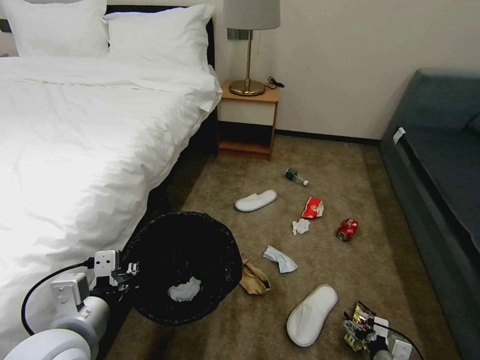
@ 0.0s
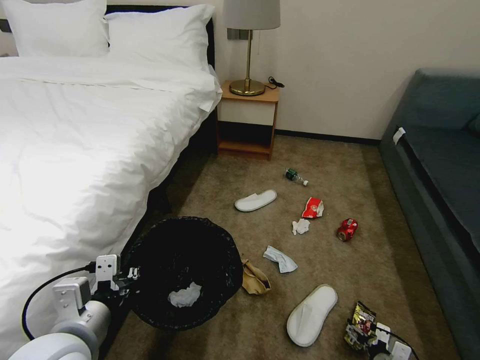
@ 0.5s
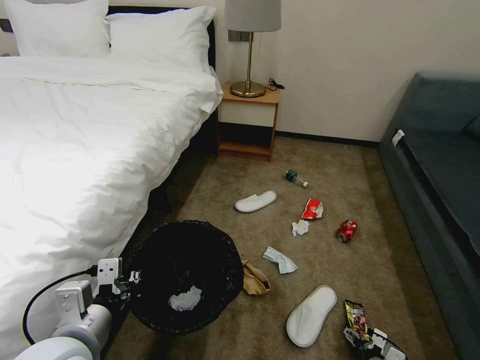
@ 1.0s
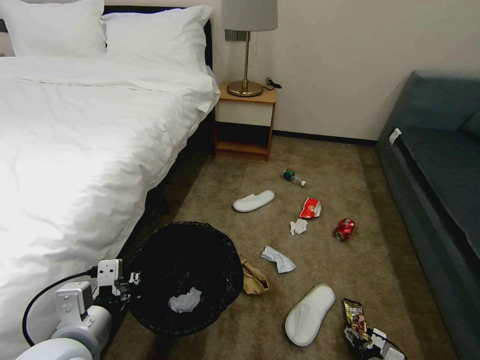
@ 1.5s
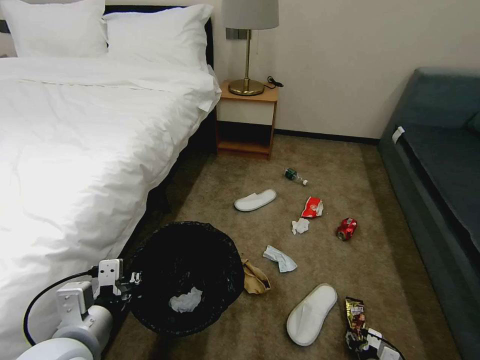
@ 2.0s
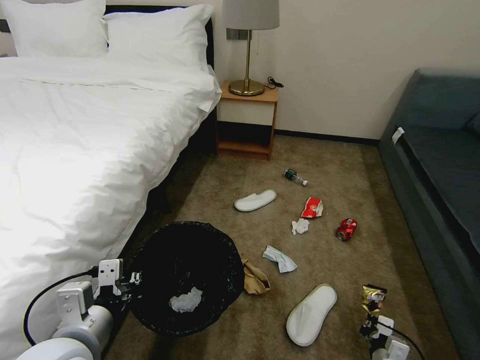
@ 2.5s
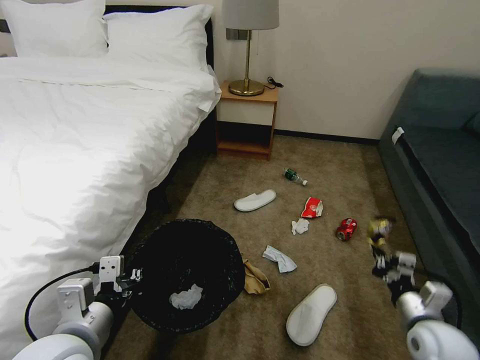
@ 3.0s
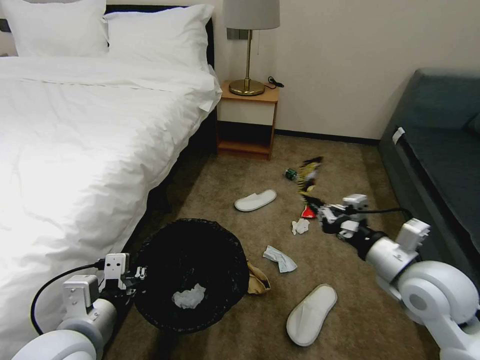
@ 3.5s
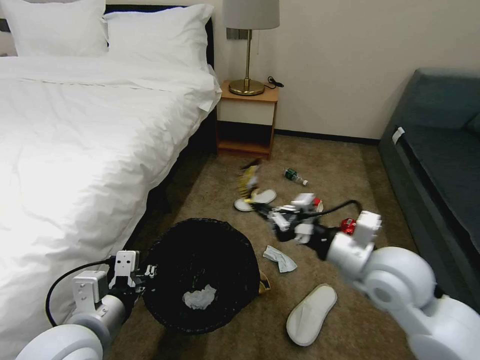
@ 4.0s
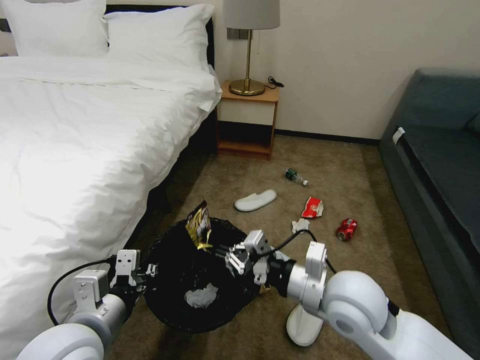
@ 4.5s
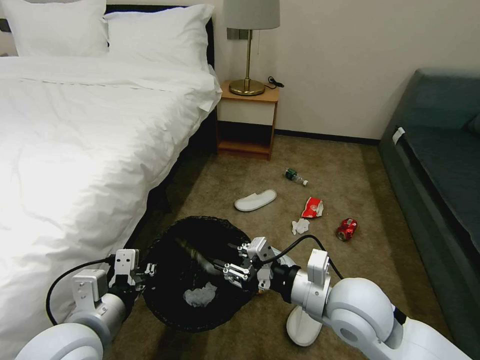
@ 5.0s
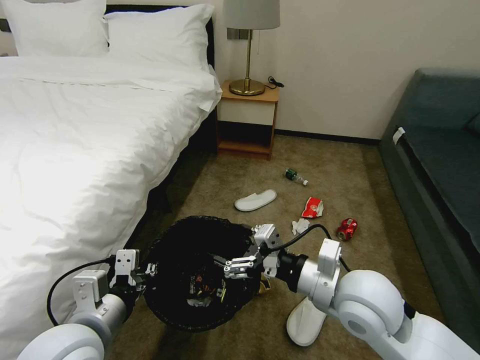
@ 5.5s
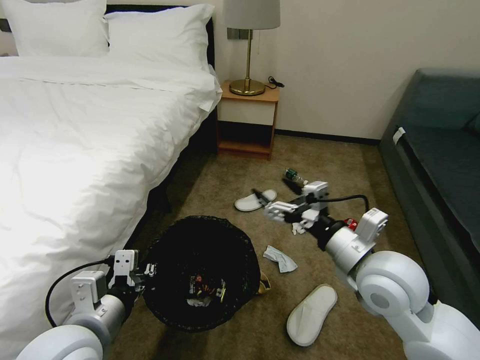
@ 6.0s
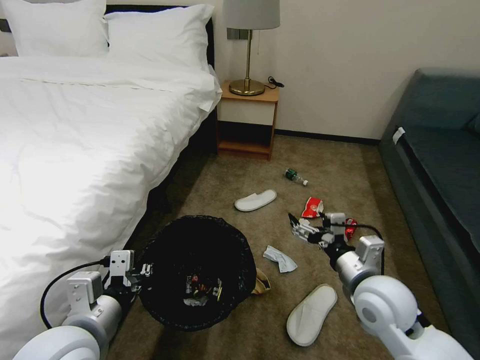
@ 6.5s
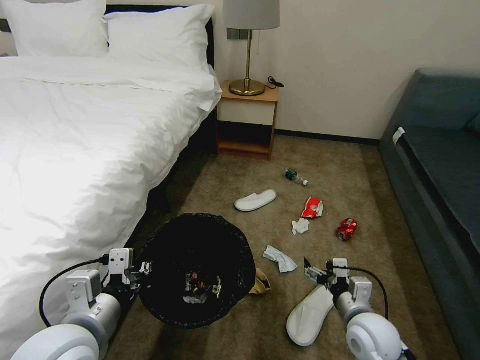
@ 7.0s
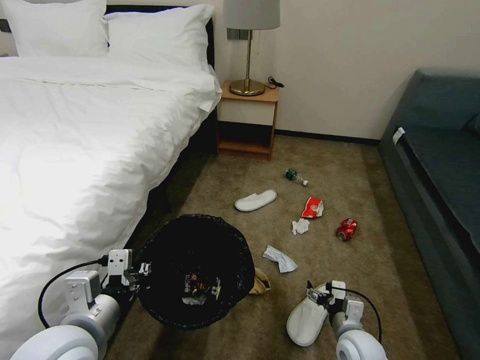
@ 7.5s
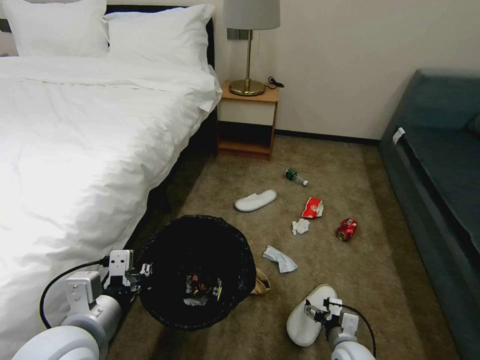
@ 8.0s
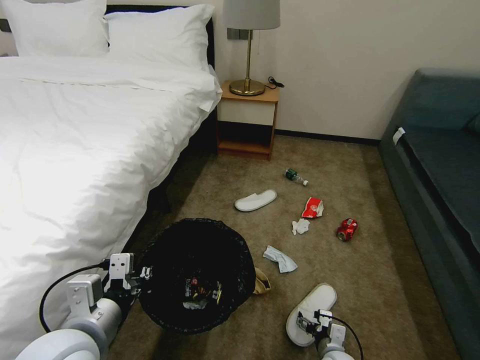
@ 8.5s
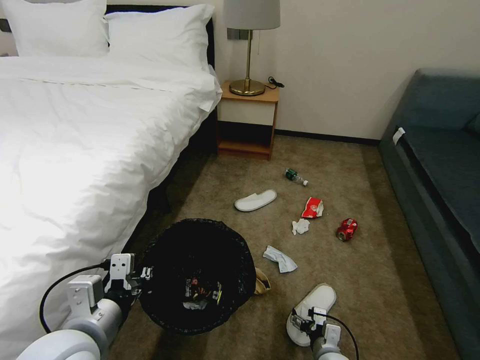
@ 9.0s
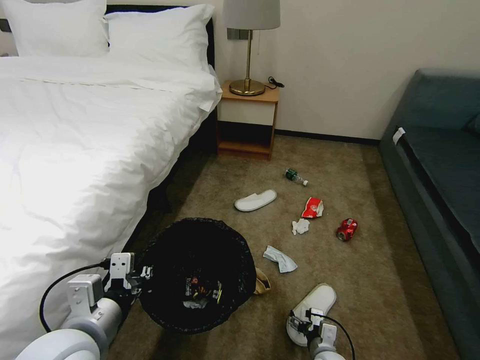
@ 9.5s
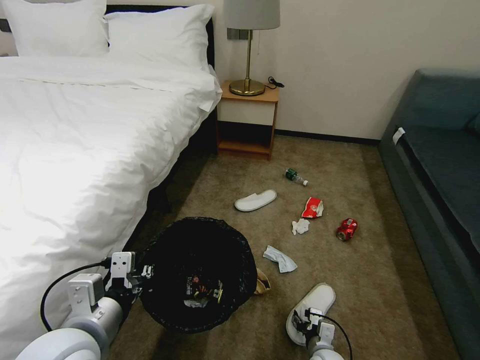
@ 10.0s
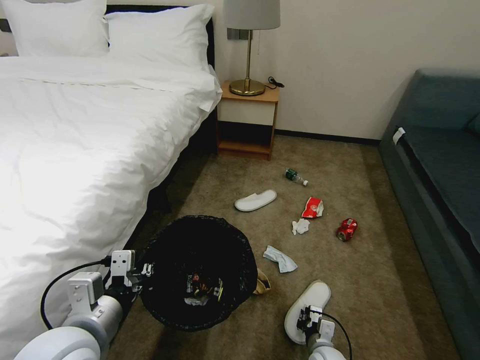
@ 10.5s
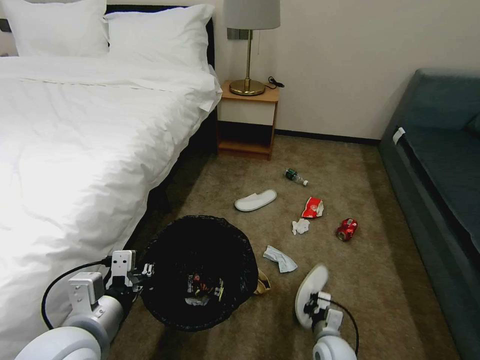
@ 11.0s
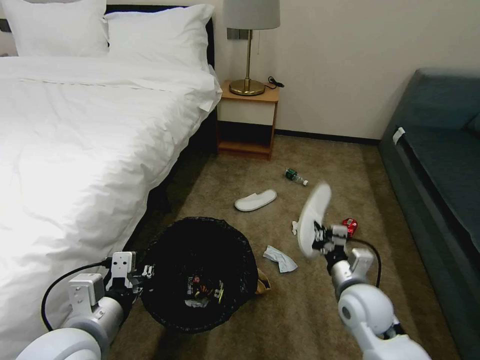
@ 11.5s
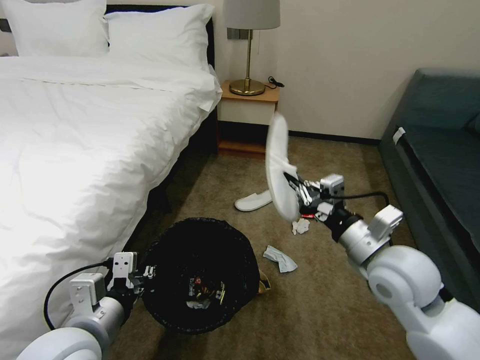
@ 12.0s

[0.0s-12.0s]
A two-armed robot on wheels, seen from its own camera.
Task of the whole recording: Pick up the trash bin, then pick up the garbage on the floor and place it into the trash bin.
0.0s to 2.0s: The right gripper shifts some 5 cm downward, and closes its fingers.
2.0s to 4.0s: The right gripper goes some 40 cm upward, and closes up.
4.0s to 6.0s: The right gripper opens up.
6.0s to 8.0s: The right gripper shifts approximately 35 cm downward.
8.0s to 10.0s: The right gripper is displaced downward by some 5 cm.
10.0s to 12.0s: The right gripper is displaced upward by about 35 cm, and closes its fingers.

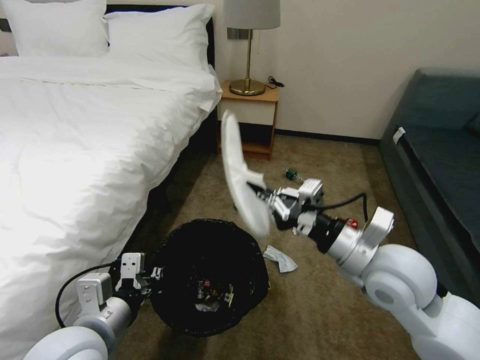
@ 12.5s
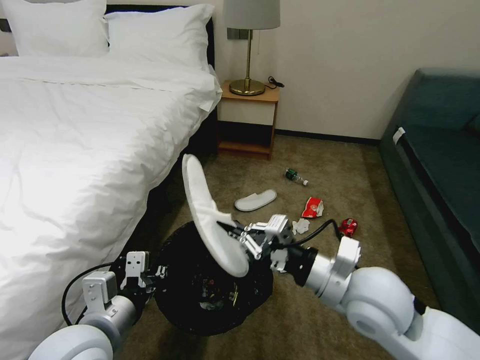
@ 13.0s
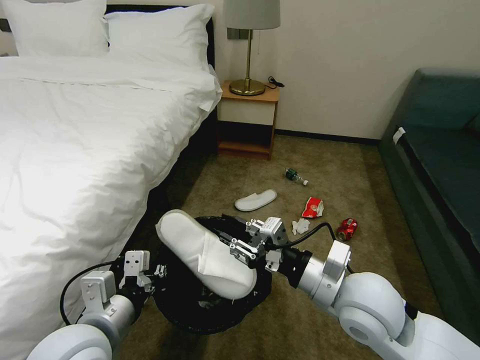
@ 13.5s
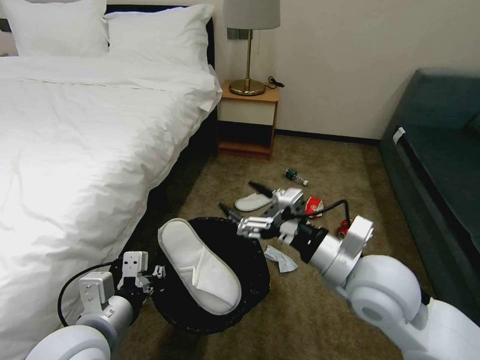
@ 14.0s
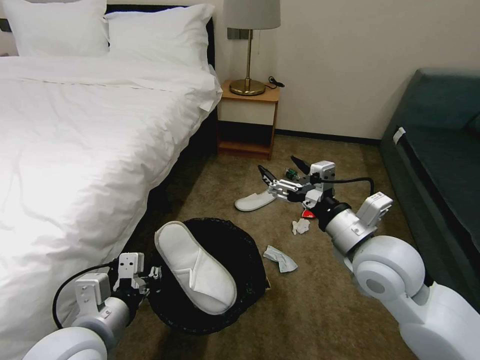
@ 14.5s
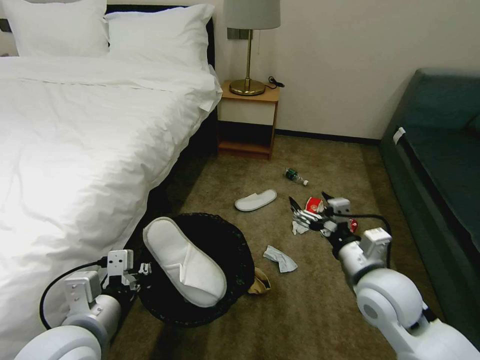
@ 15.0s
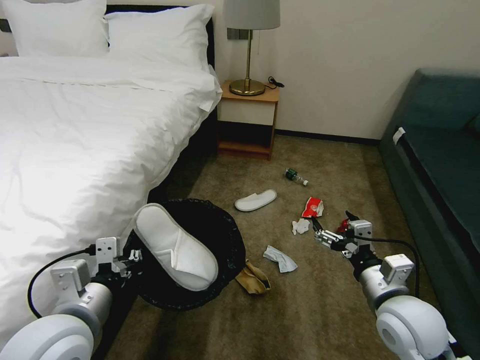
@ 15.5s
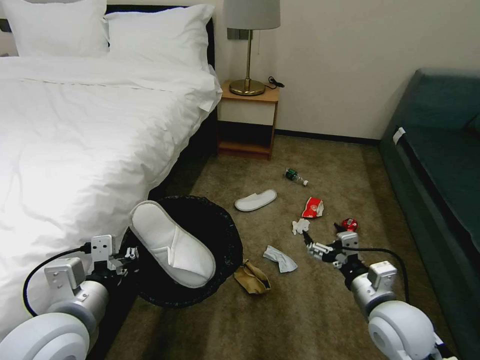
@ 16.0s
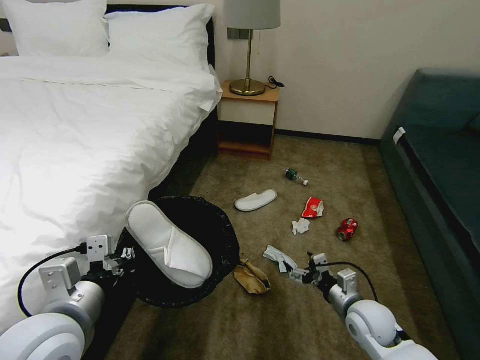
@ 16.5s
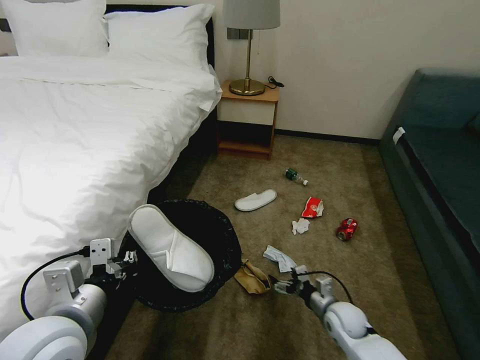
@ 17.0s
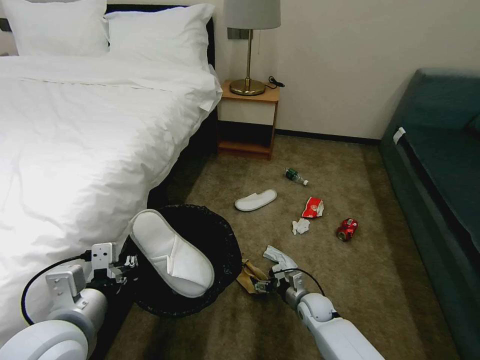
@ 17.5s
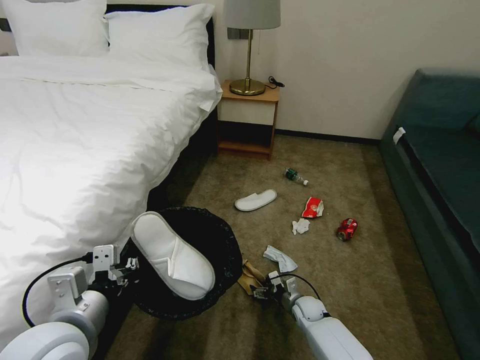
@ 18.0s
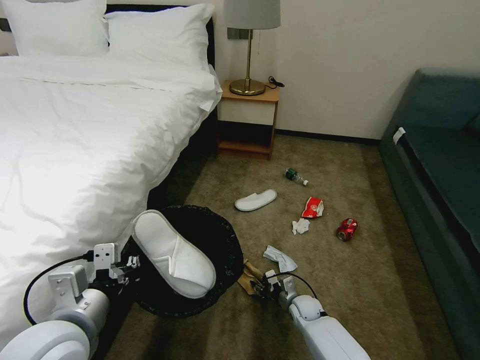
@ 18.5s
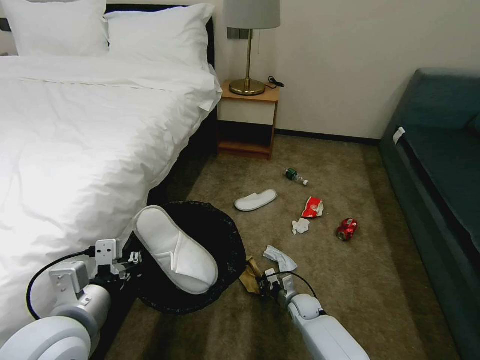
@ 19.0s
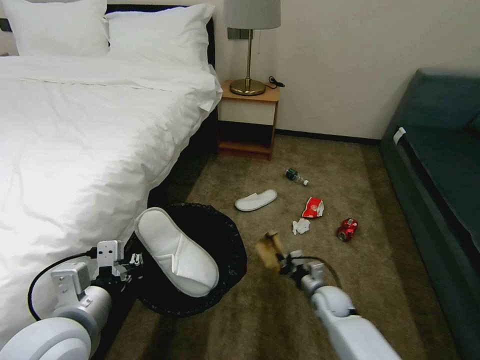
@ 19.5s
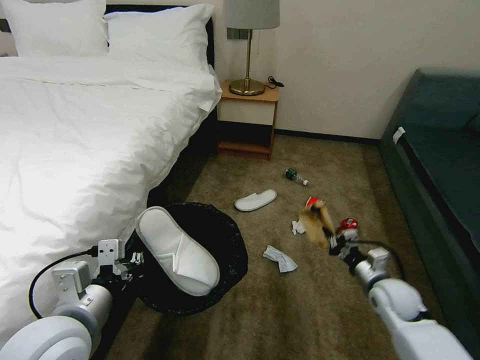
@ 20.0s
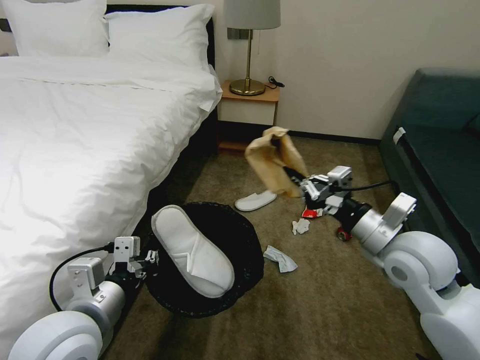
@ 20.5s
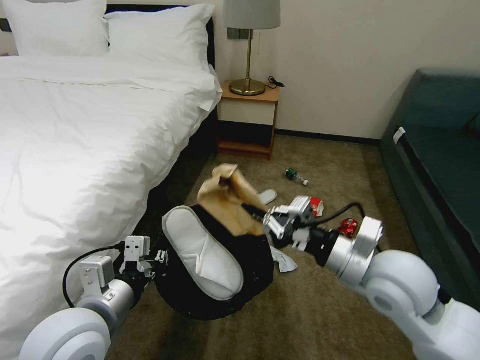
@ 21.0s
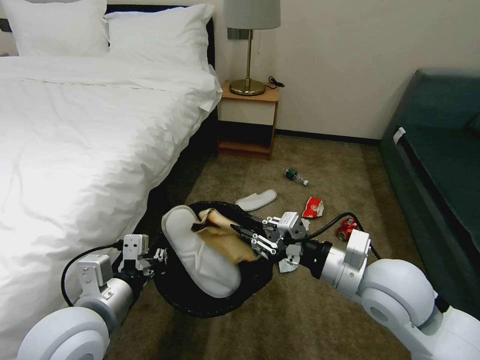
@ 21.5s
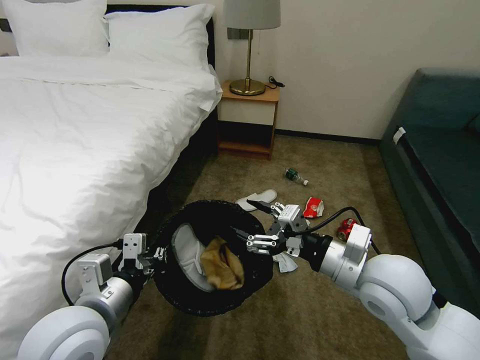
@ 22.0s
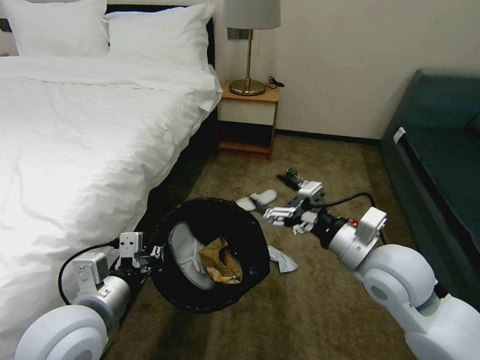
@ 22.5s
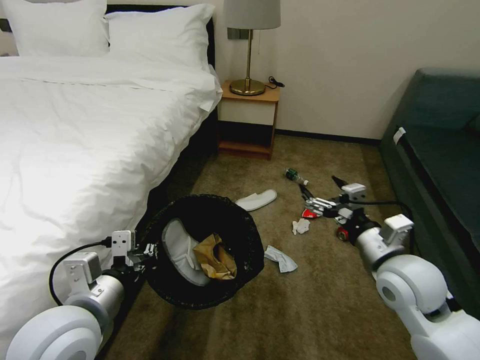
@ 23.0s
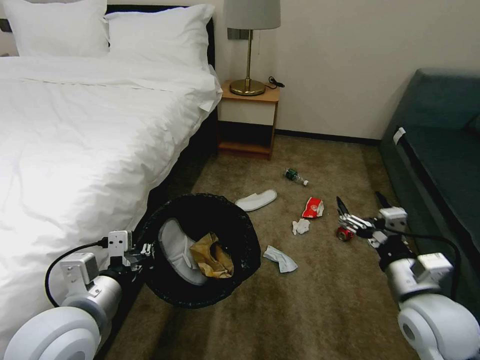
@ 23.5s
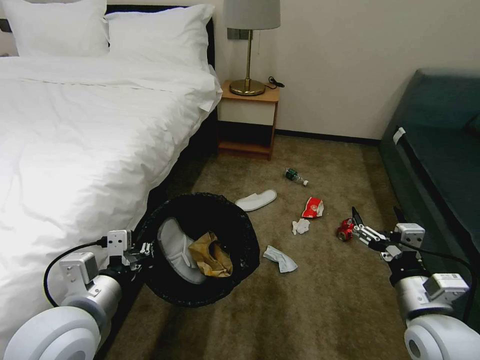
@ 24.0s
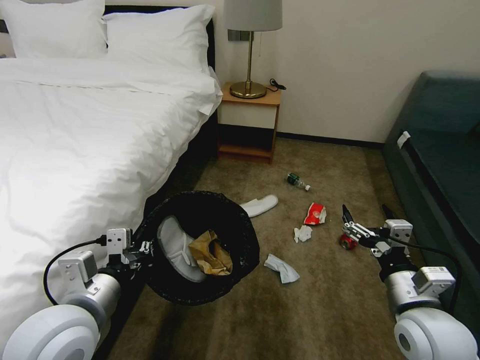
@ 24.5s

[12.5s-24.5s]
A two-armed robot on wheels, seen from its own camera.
Task of the whole recording: Pick up the trash bin, then pick up the garbage on the floor and place it into the trash bin.
12.5s to 14.5s: The right gripper opens its fingers.
14.5s to 16.5s: The right gripper goes roughly 25 cm downward.
16.5s to 18.5s: The right gripper heads downward, to the left and forward, covering approximately 20 cm, and closes its fingers.
18.5s to 20.5s: The right gripper goes some 40 cm upward, and closes up.
20.5s to 22.5s: The right gripper opens.
22.5s to 24.5s: The right gripper shifts some 10 cm downward, backward and to the right.

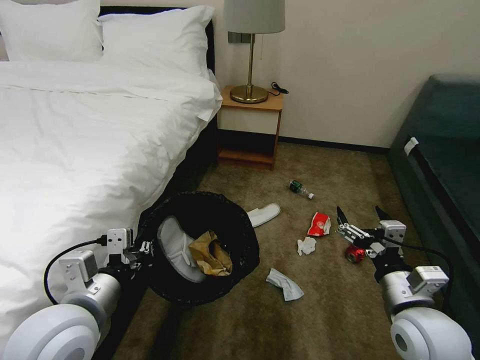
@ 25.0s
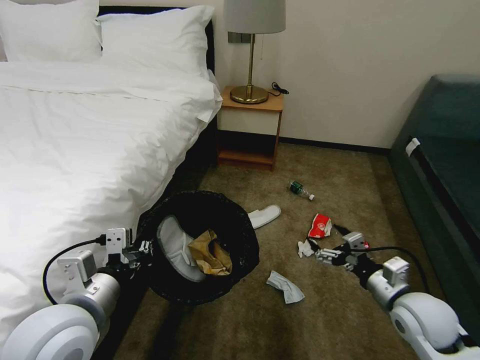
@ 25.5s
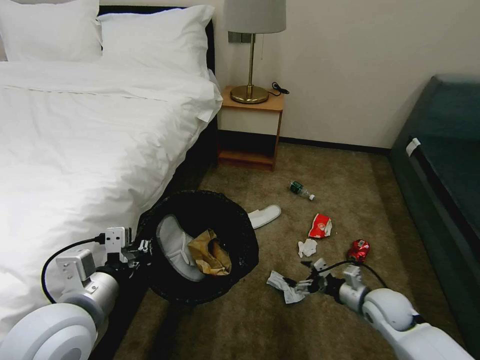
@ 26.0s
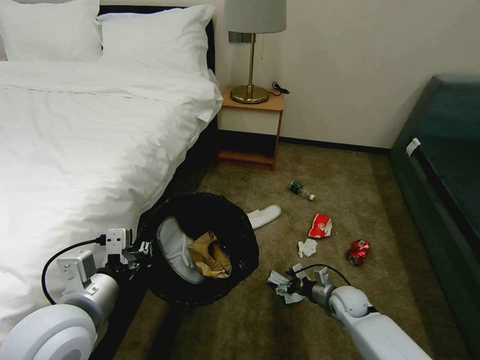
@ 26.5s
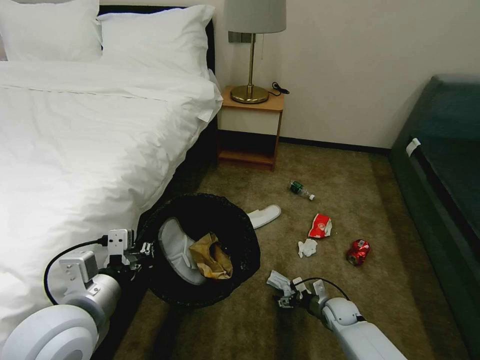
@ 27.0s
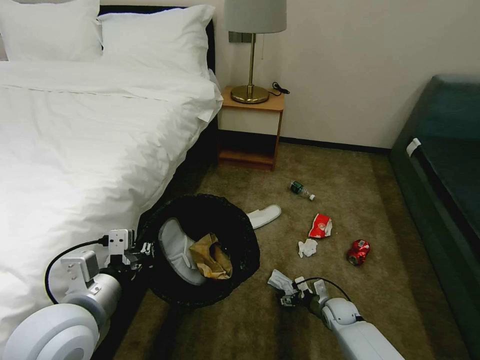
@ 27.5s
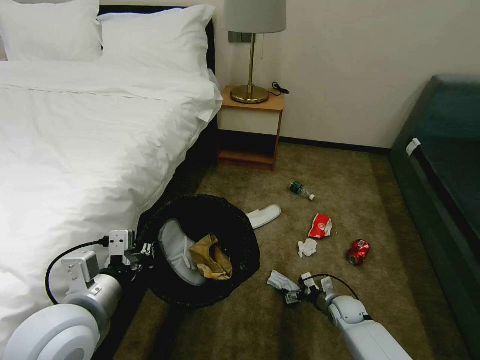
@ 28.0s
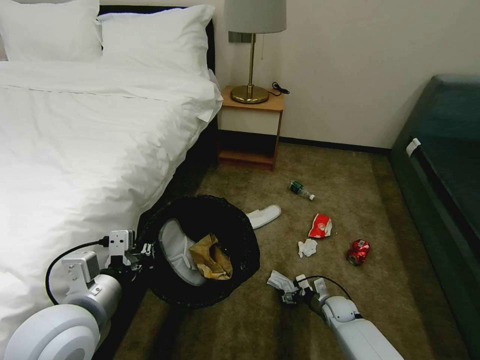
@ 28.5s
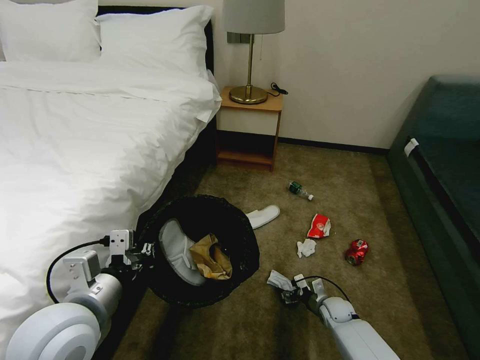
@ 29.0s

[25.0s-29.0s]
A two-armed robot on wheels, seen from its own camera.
Task of the whole recording: Pick up the trash bin, then pick up the garbage on the floor and place it into the trash bin.
25.0s to 27.0s: The right gripper shifts some 30 cm downward and forward.
27.0s to 29.0s: The grippers move only a little.
